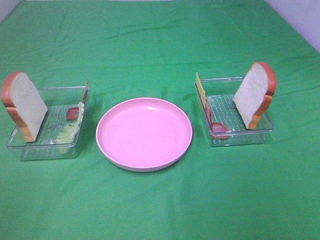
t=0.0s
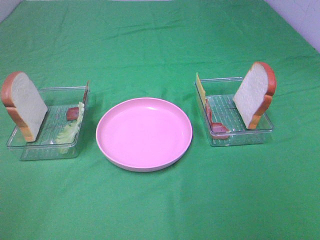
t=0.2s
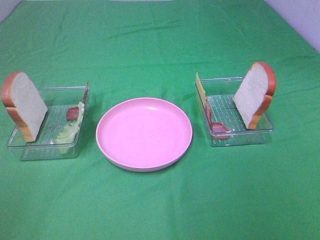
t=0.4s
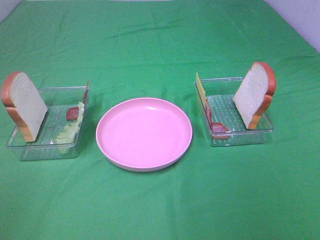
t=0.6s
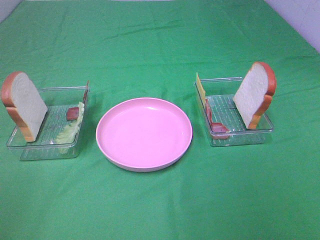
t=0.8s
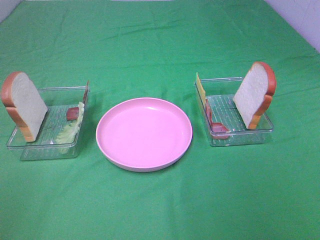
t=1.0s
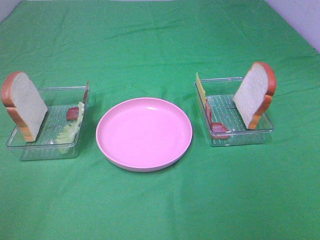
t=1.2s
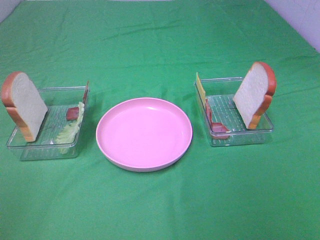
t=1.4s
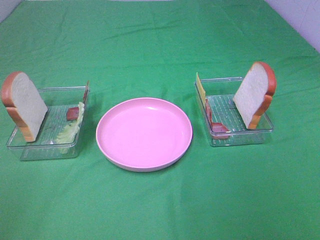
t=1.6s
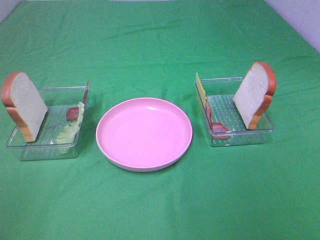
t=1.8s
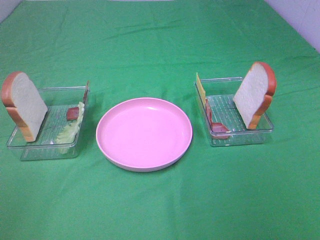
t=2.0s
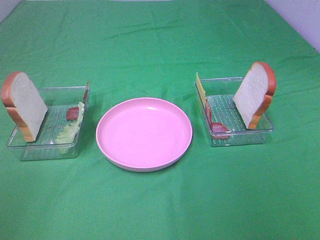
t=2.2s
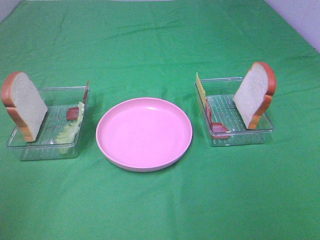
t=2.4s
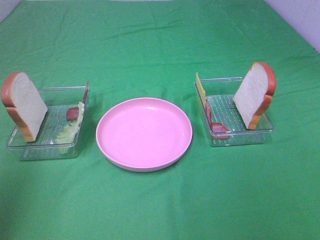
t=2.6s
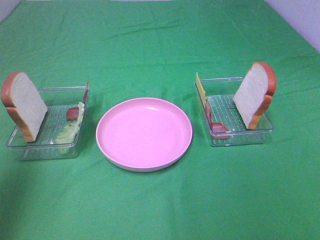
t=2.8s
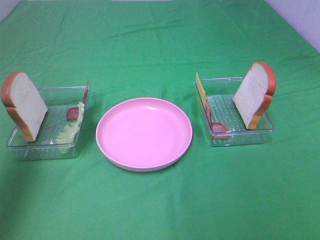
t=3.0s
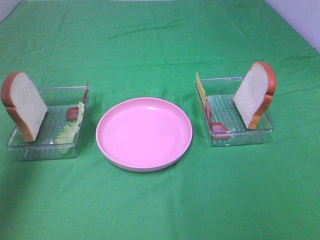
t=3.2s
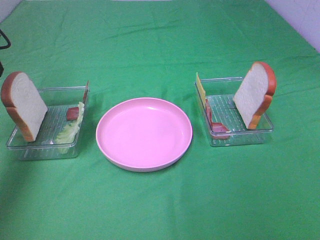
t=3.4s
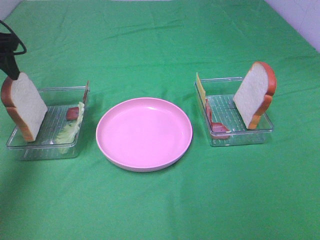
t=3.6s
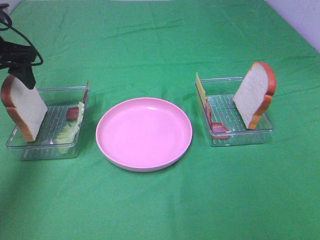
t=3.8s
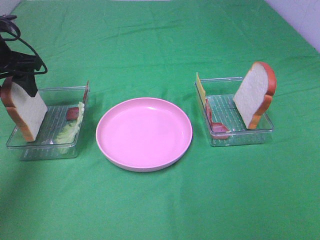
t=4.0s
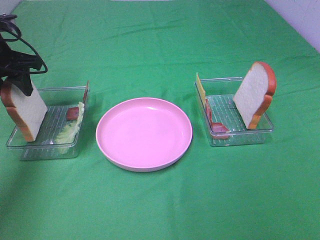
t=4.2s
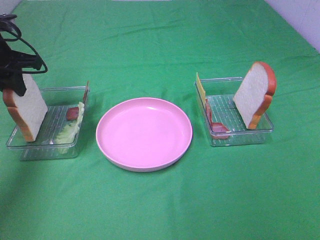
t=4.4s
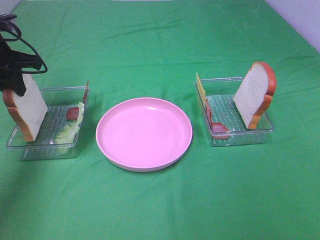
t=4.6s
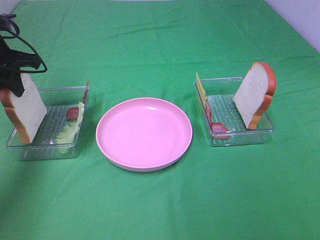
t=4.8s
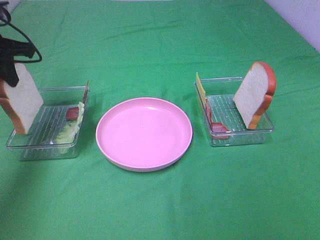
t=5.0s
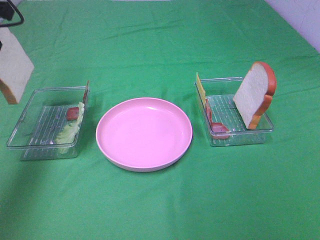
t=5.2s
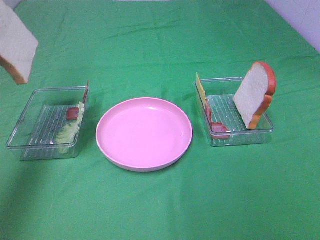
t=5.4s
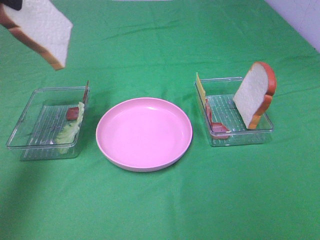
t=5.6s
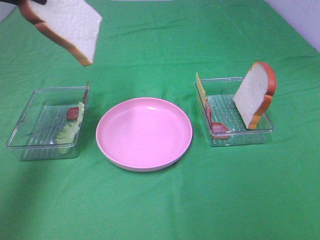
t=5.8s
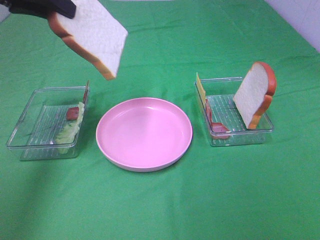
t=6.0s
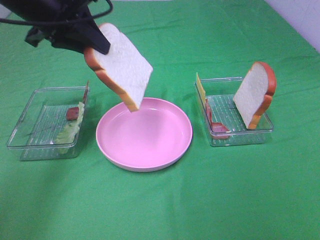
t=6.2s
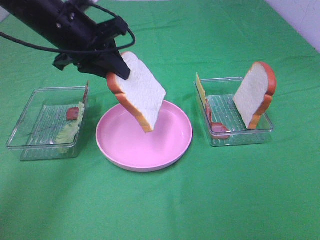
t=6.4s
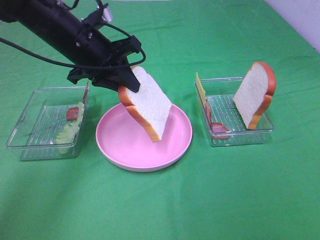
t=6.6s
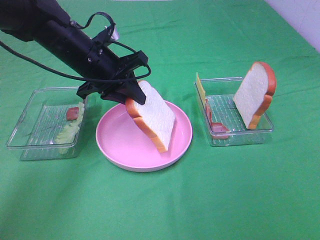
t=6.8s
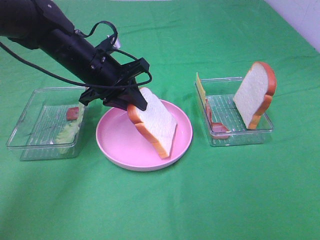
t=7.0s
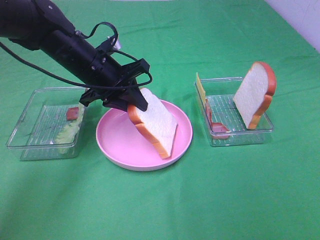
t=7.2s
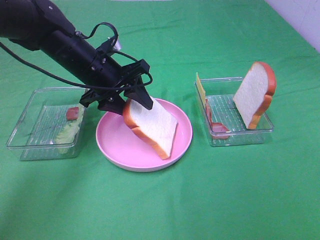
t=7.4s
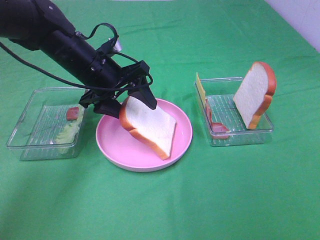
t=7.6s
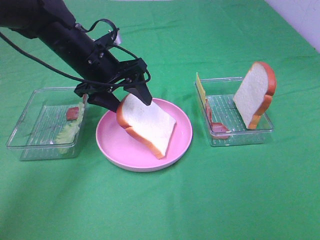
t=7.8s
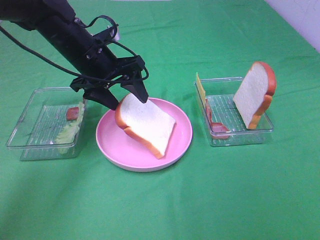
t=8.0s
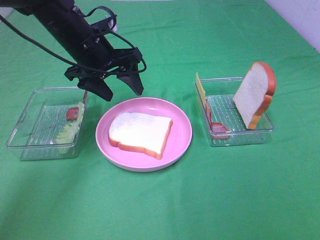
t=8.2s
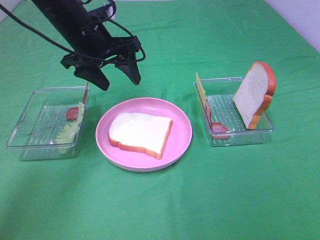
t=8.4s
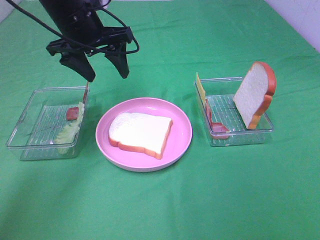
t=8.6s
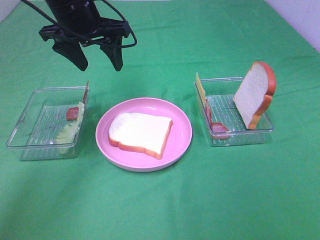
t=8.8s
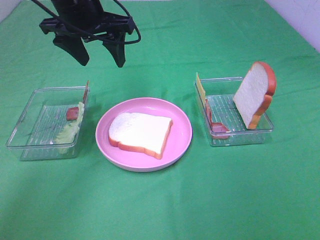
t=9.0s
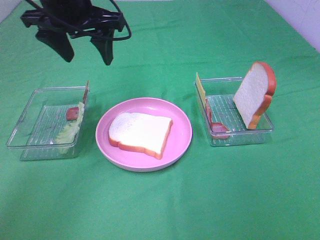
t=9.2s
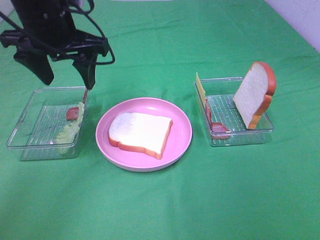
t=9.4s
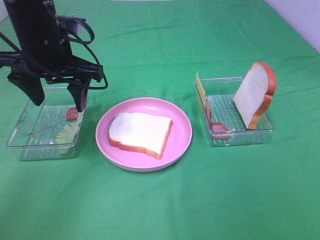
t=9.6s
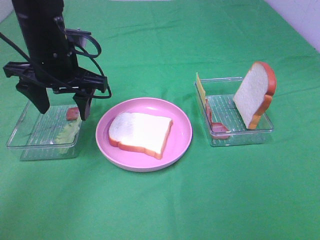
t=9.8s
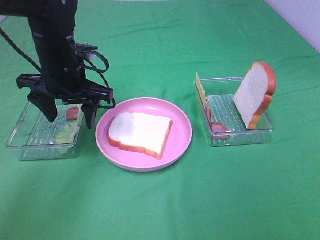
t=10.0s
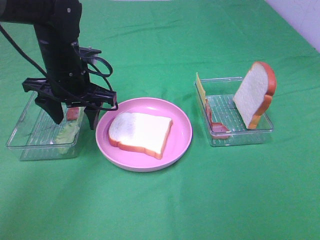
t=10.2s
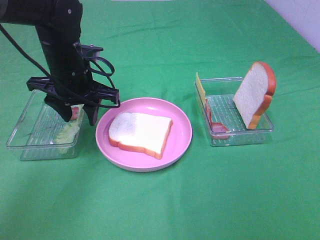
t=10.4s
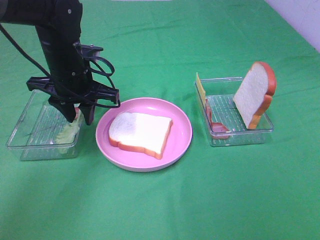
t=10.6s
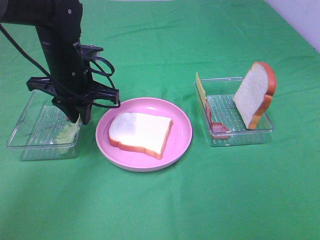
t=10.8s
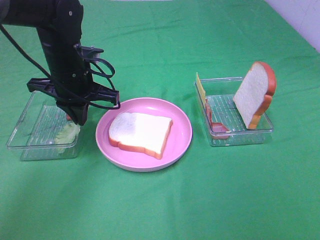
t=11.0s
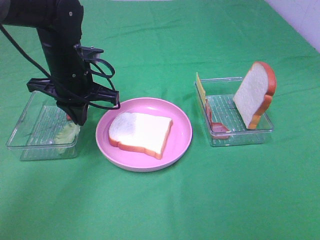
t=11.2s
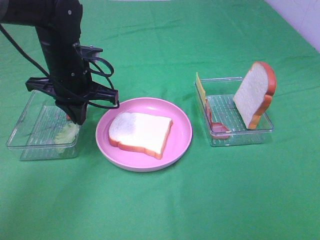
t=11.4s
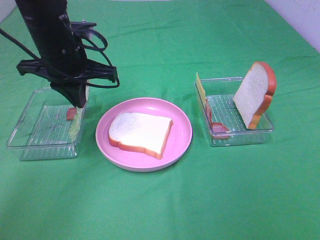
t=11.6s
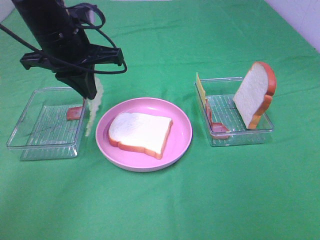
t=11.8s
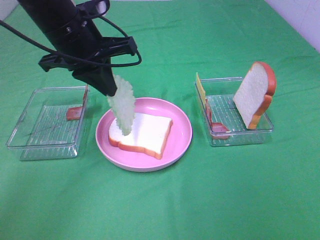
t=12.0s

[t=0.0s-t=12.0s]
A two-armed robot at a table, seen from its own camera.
Task of the whole recording: Make sandwiches.
Step, t=0.0s to t=4.6s: Left hand:grab the bread slice.
Step, t=4.8s to t=8.2s: Left hand:place the bread slice on the plate.
Step, t=8.4s to t=11.2s: Left hand:grab the lettuce slice.
t=0.0s to t=1.6s: Both grippers stay about where they are.
t=1.6s to t=3.0s: The left gripper travels forward by approximately 25 cm.
t=3.0s to t=4.4s: The left gripper heads forward and downward, covering some 20 cm, and closes up.
t=4.4s to t=6.0s: The left gripper moves upward, to the right and backward, roughly 15 cm.
t=6.0s to t=7.6s: The left gripper moves downward and to the right, roughly 20 cm, and opens its fingers.
t=7.6s to t=9.0s: The left gripper heads upward, covering approximately 10 cm.
t=9.0s to t=10.4s: The left gripper shifts some 10 cm downward.
t=10.4s to t=12.0s: The left gripper moves upward, approximately 10 cm, and closes.

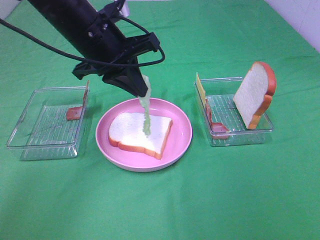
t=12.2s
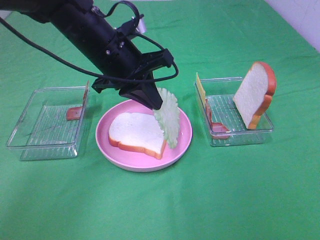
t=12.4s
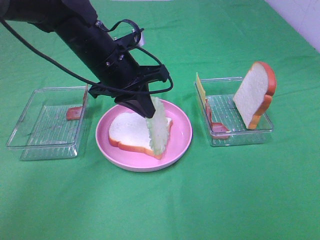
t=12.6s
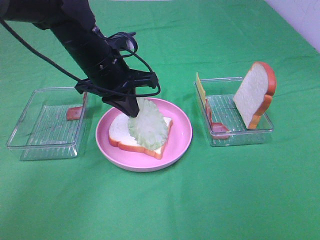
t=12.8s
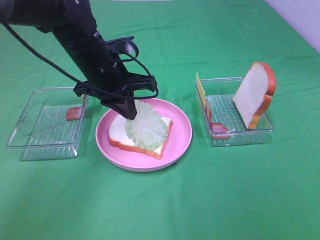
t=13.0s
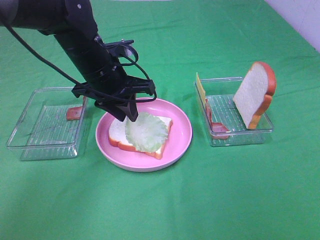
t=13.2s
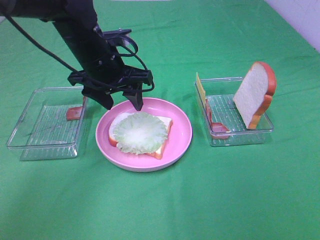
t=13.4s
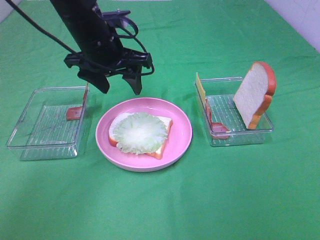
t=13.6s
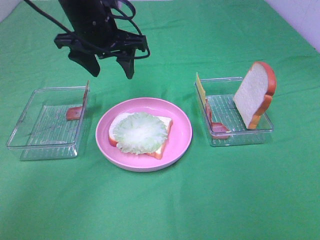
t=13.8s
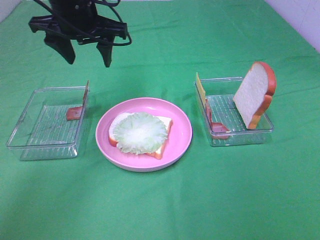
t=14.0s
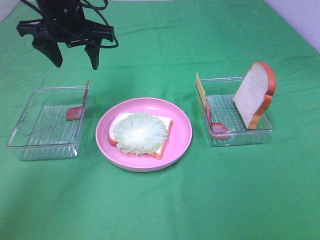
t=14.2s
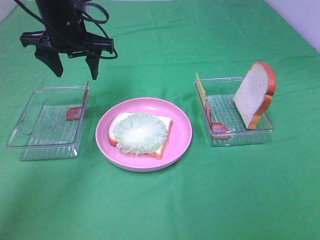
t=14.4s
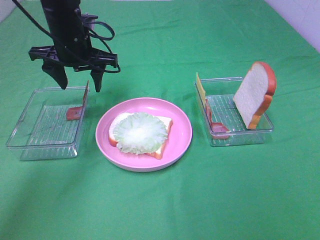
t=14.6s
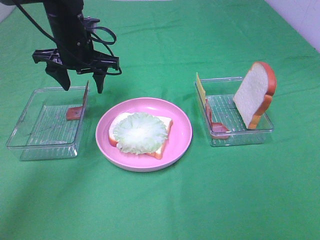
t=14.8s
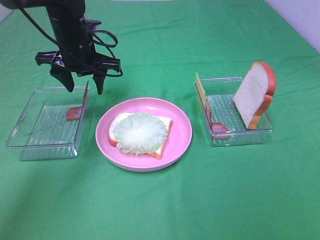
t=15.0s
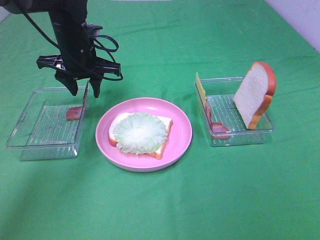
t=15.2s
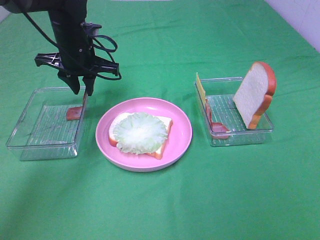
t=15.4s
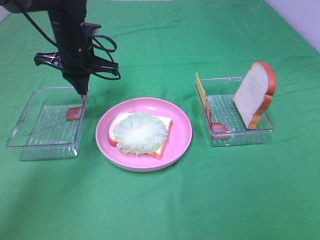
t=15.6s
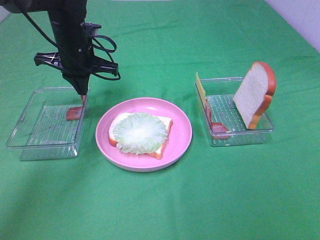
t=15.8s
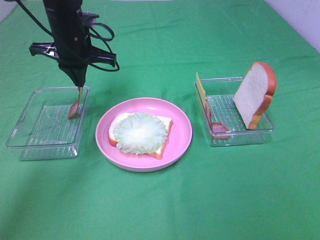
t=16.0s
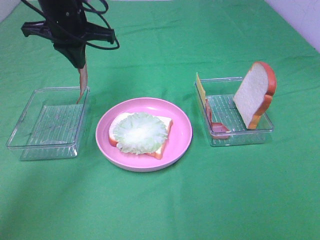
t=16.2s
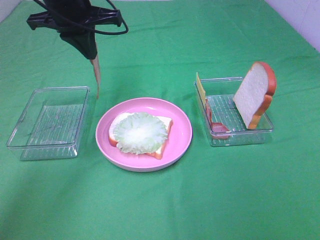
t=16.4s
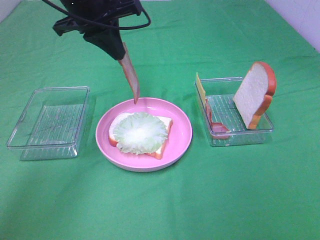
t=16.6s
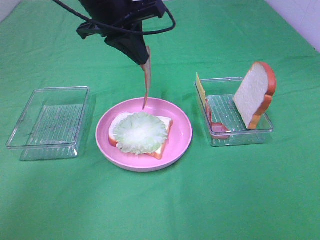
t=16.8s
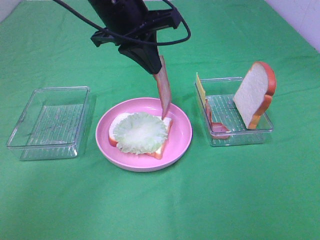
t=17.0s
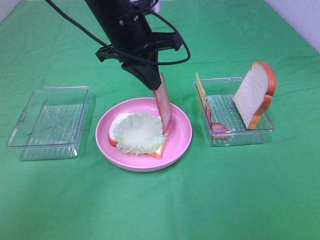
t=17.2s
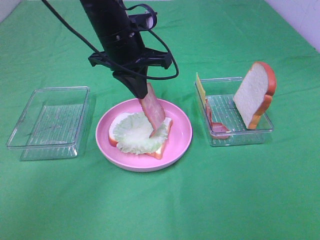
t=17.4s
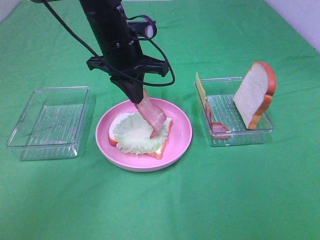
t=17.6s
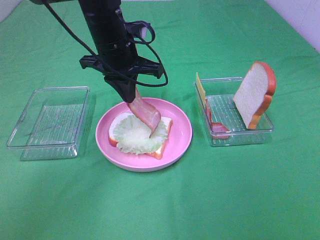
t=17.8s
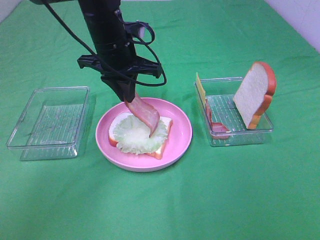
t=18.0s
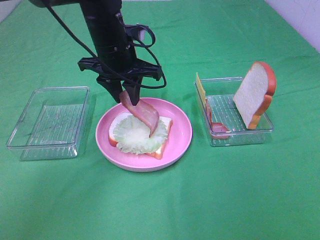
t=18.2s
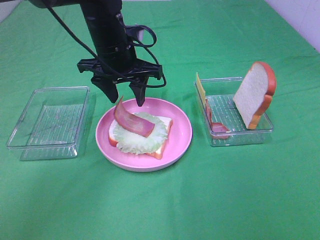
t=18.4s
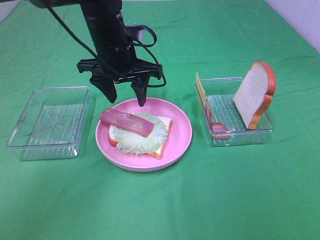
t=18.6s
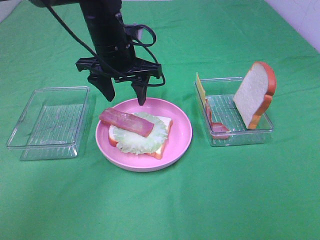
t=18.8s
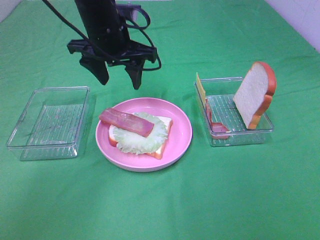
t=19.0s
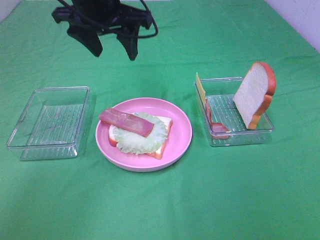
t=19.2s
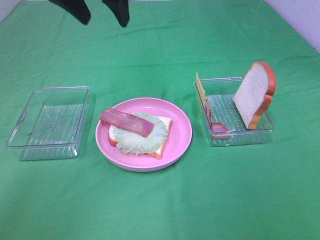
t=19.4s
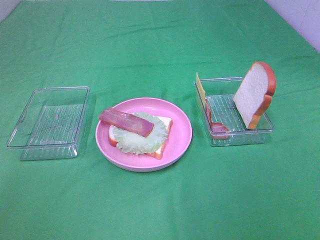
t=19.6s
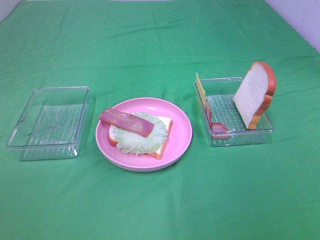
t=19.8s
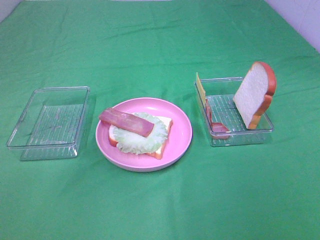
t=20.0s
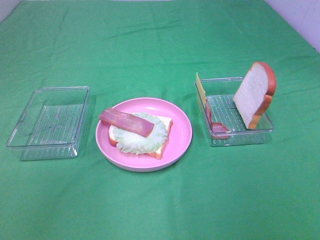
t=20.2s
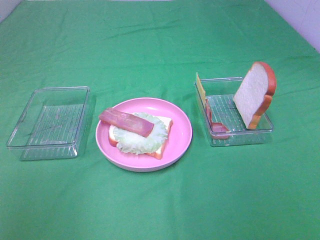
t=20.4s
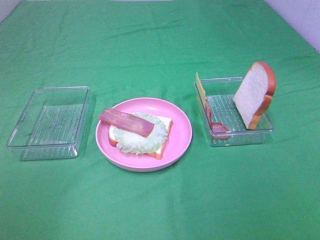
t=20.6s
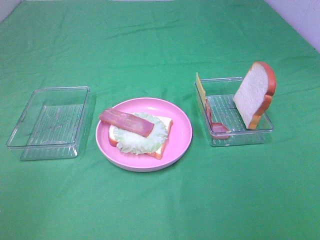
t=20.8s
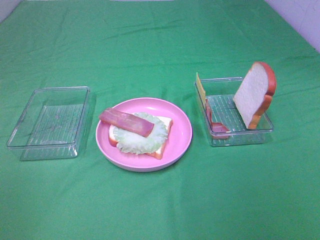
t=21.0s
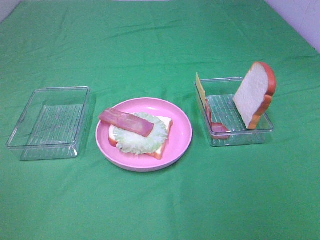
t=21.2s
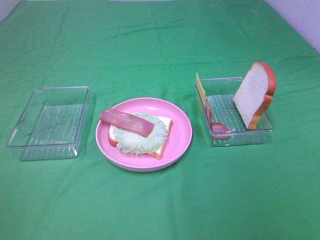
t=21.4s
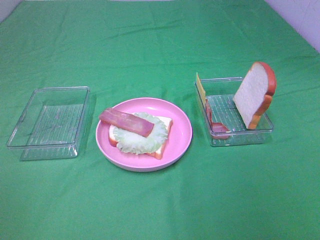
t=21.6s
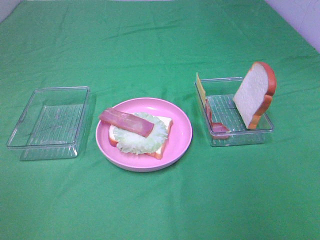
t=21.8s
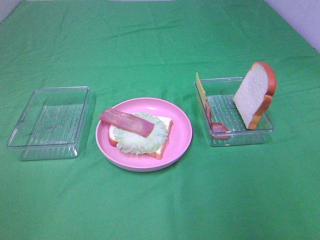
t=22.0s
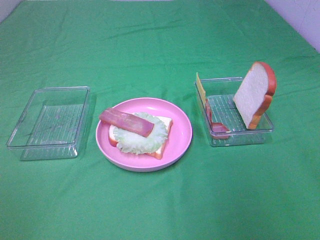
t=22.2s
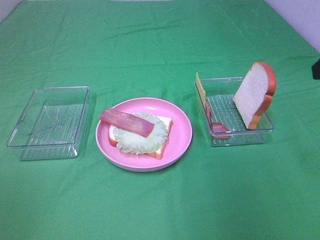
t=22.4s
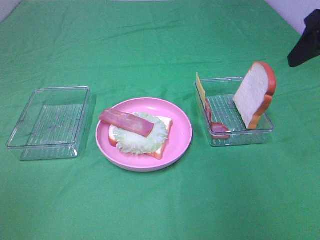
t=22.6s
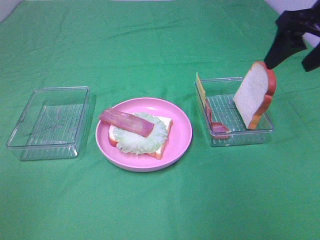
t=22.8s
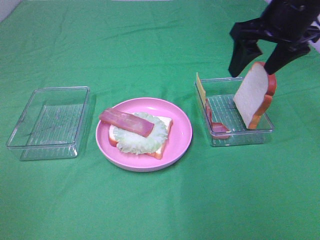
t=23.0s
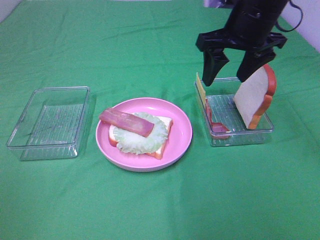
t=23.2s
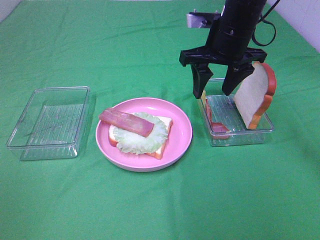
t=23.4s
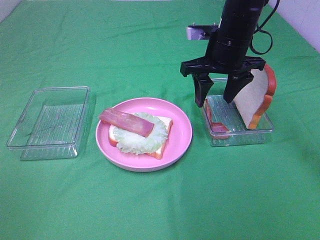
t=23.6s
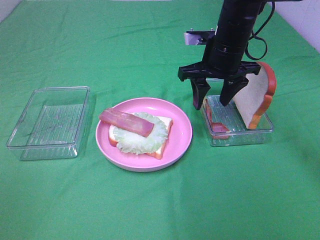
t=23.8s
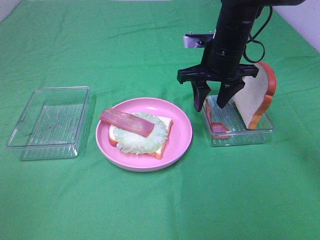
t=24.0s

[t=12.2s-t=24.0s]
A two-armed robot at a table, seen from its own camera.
Task of the whole recording: Make sandwiches.
Step, t=12.2s to t=13.4s: Left hand:place the lettuce slice on the bread slice.
Step, t=13.6s to t=15.6s: Left hand:grab the bacon.
Step, t=15.8s to t=18.6s: Left hand:place bacon on lettuce slice.
t=12.2s to t=13.6s: The left gripper opens its fingers.
t=13.6s to t=15.2s: The left gripper moves forward and to the left, roughly 5 cm.
t=15.2s to t=16.6s: The left gripper shifts about 10 cm upward, and closes.
t=16.6s to t=18.2s: The left gripper travels downward by about 10 cm, and opens its fingers.
t=18.2s to t=19.6s: The left gripper travels upward and backward by some 25 cm, and opens.
t=21.0s to t=22.6s: The right gripper travels forward by about 30 cm.
t=22.6s to t=24.0s: The right gripper moves to the left, downward and forward, approximately 25 cm.
